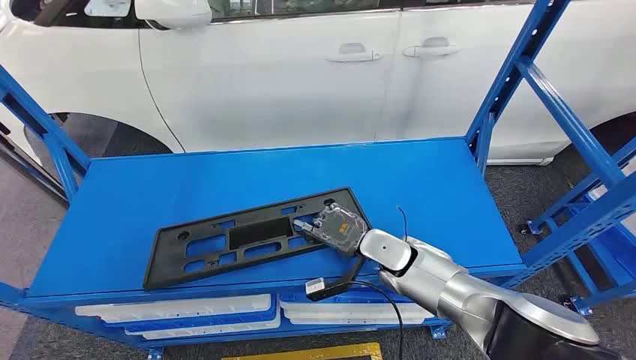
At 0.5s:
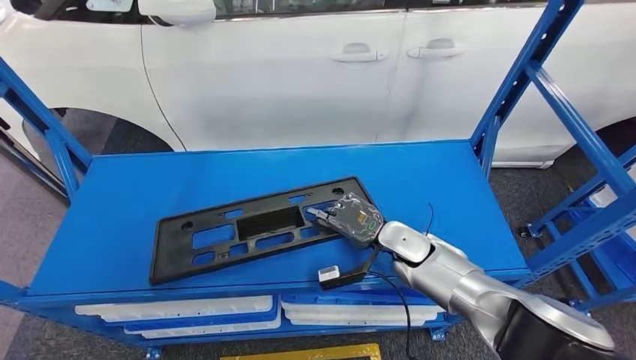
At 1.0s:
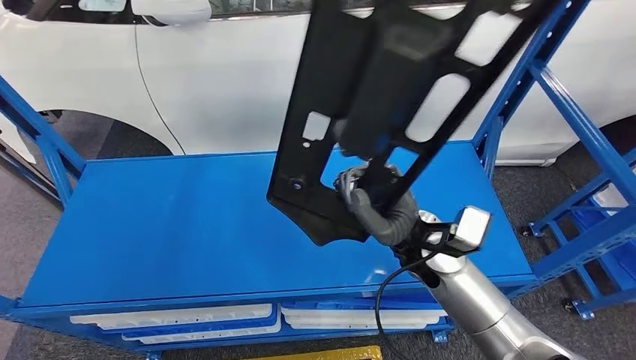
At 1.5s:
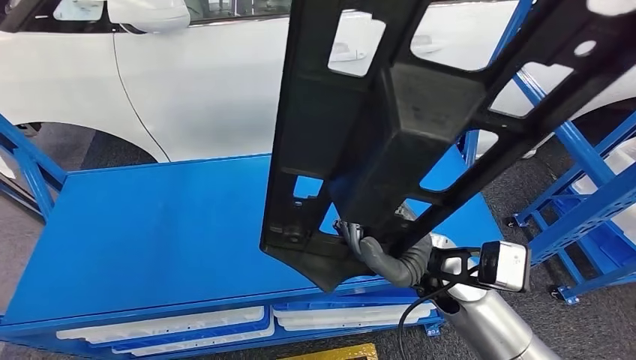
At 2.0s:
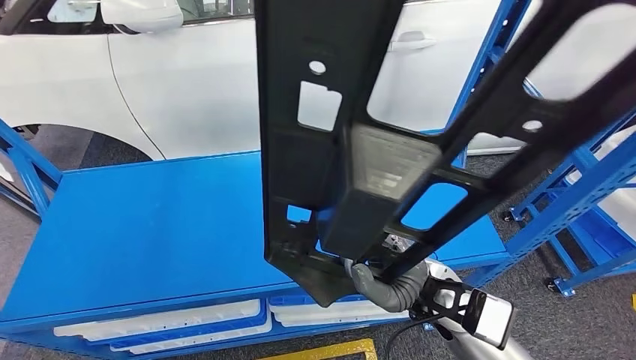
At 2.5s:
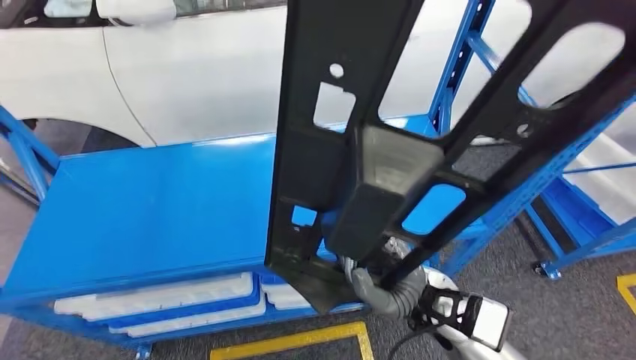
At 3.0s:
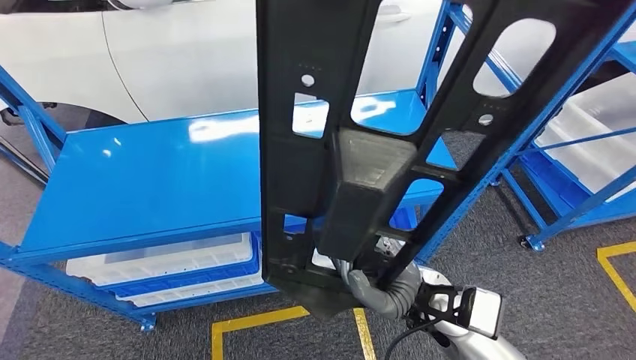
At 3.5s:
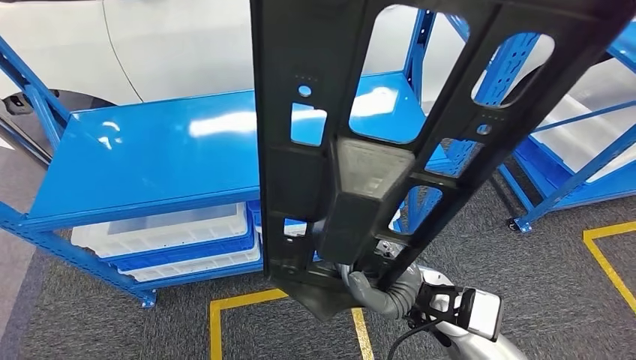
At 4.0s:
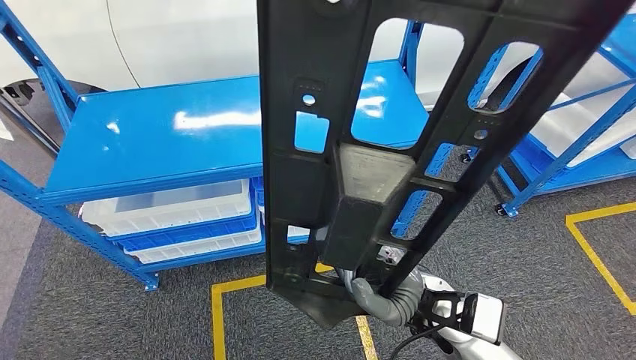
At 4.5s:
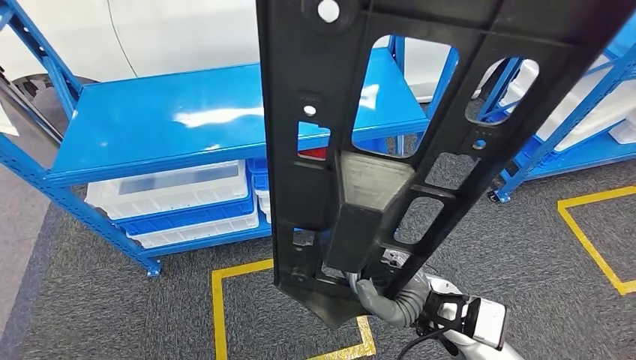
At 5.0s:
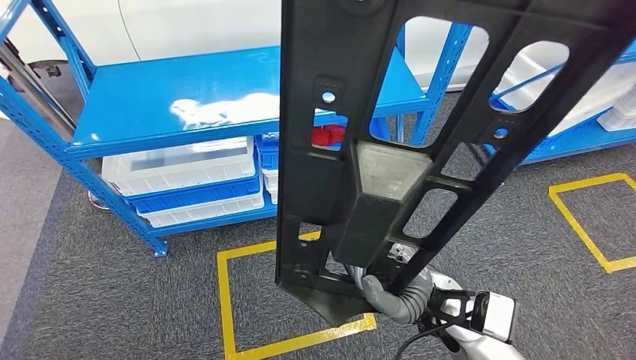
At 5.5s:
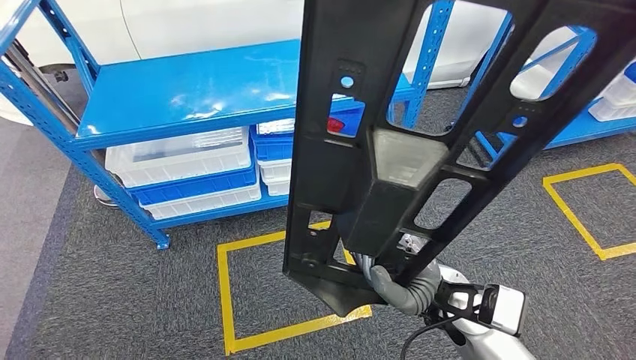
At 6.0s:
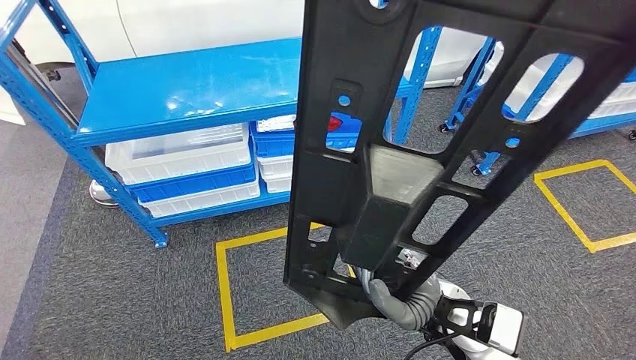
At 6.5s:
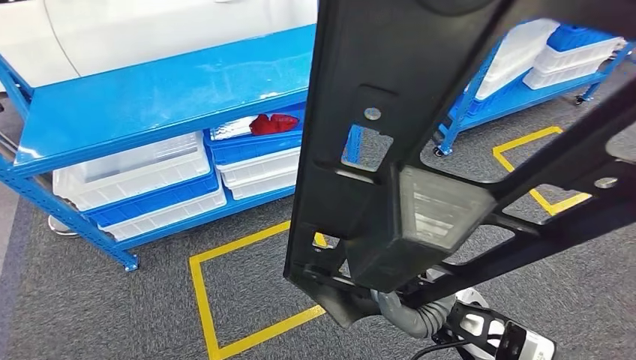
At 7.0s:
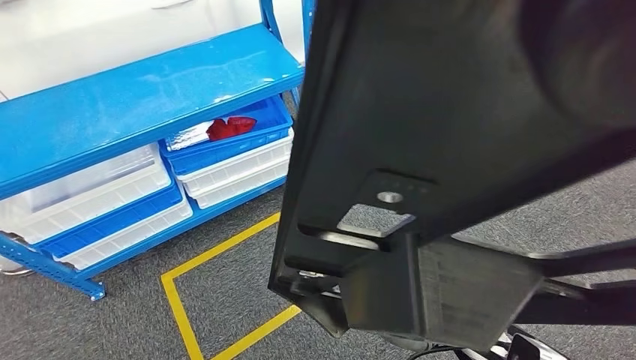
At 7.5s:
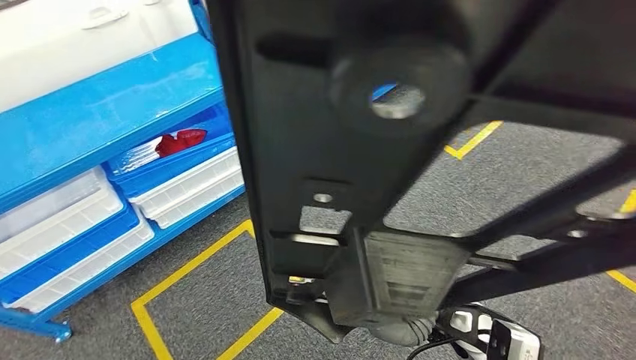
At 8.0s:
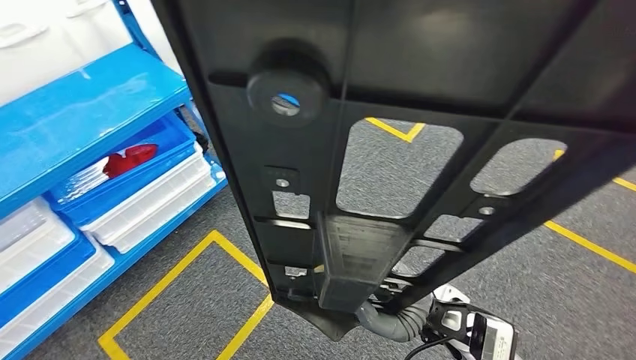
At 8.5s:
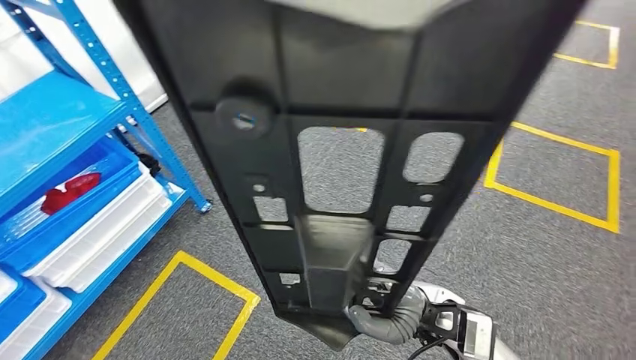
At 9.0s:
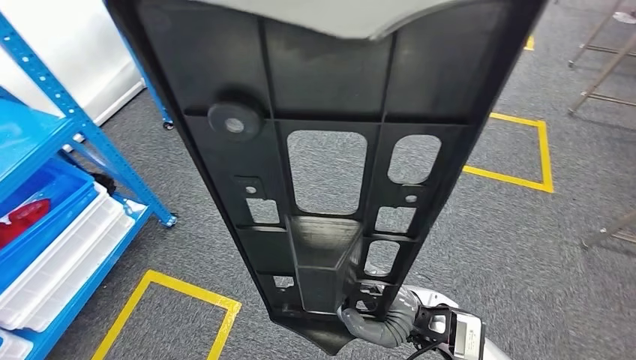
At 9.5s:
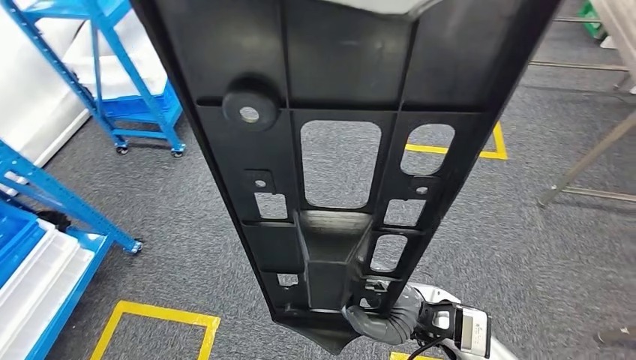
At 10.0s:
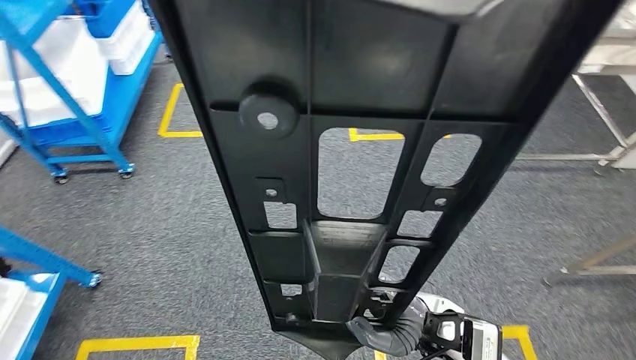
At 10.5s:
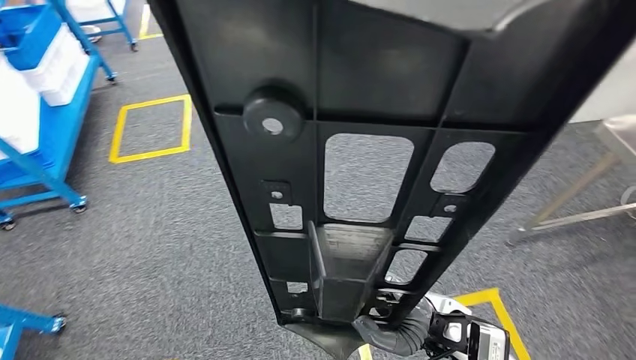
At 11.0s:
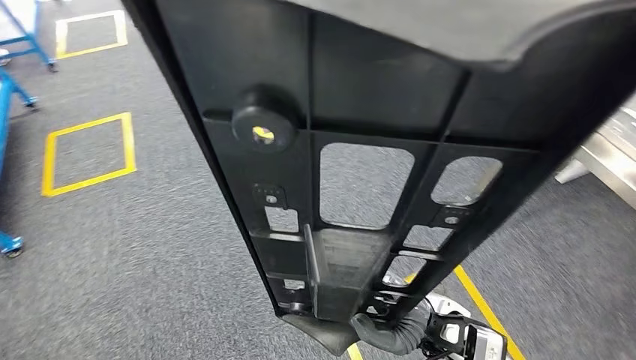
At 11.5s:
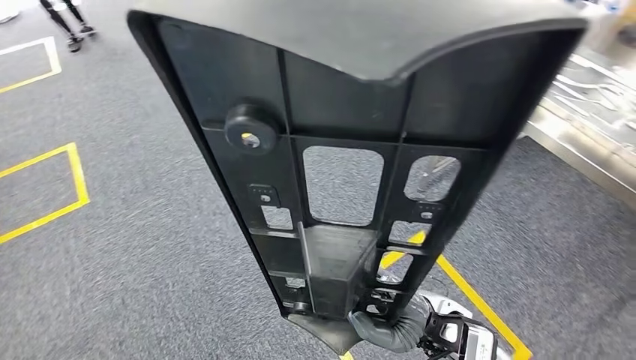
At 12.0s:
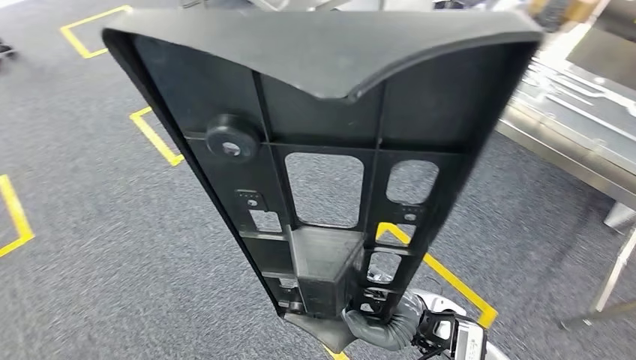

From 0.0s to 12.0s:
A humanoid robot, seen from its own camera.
Step, from 0.0s to 3.0s: Pick up the large material from the shelf.

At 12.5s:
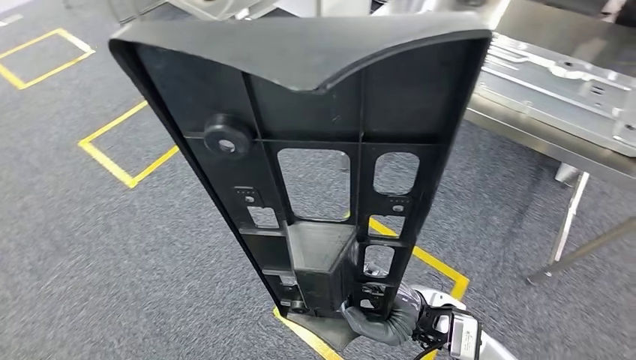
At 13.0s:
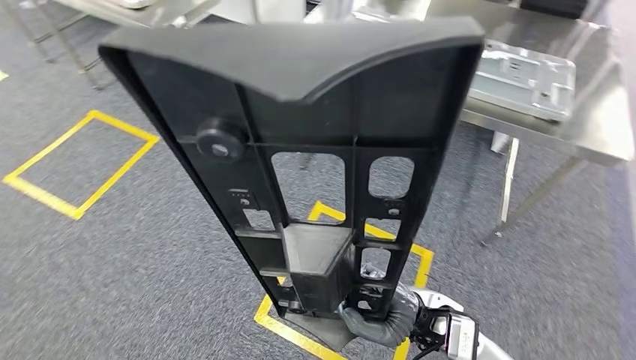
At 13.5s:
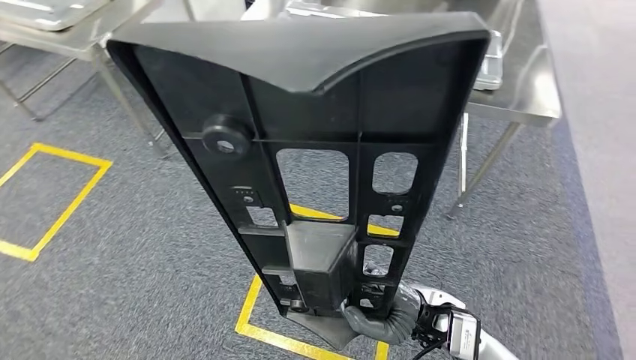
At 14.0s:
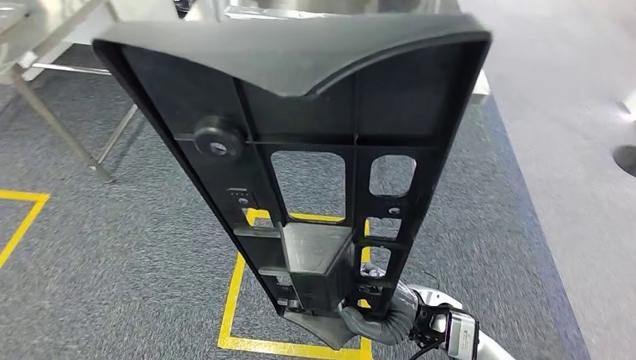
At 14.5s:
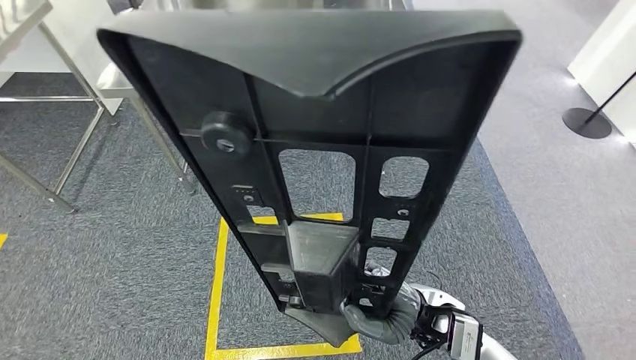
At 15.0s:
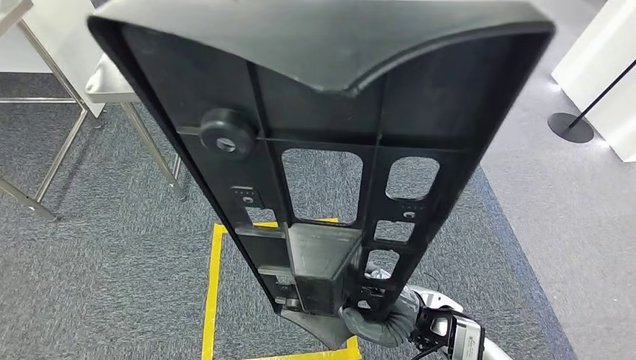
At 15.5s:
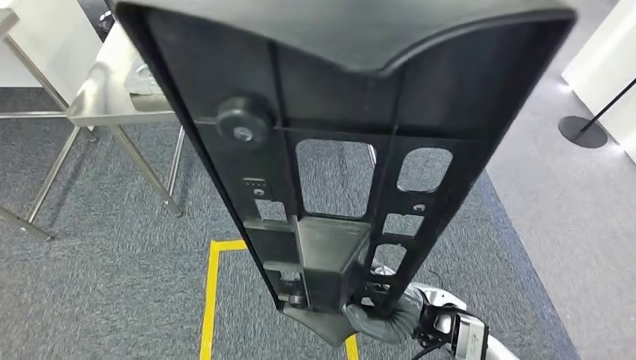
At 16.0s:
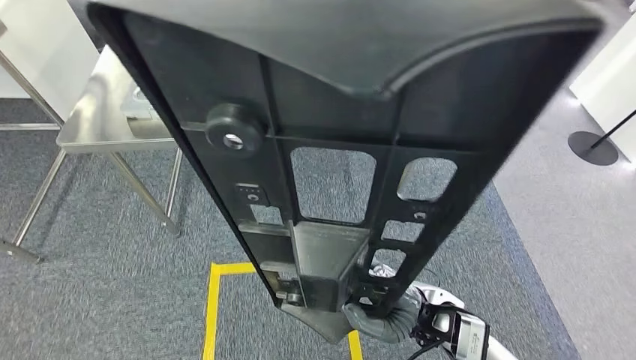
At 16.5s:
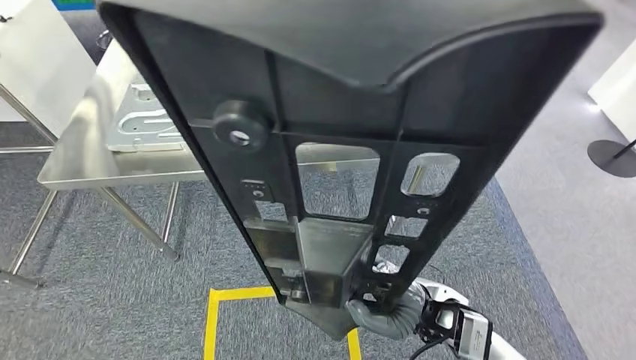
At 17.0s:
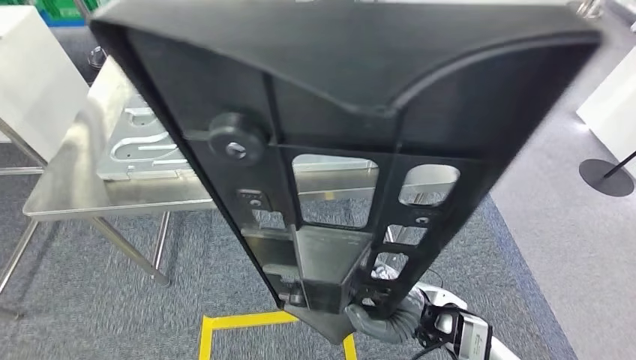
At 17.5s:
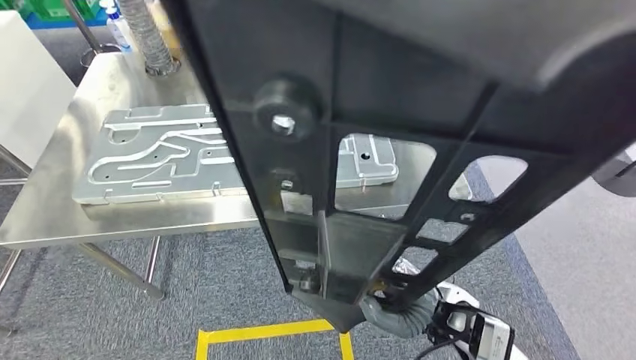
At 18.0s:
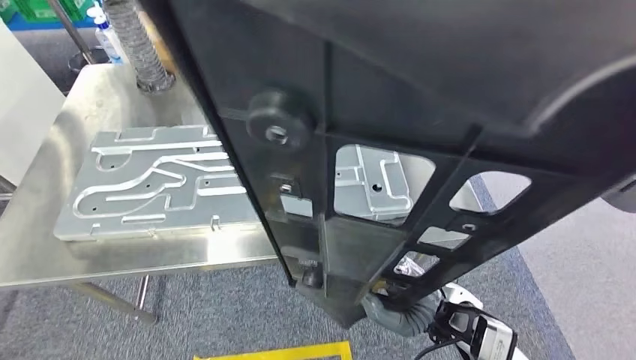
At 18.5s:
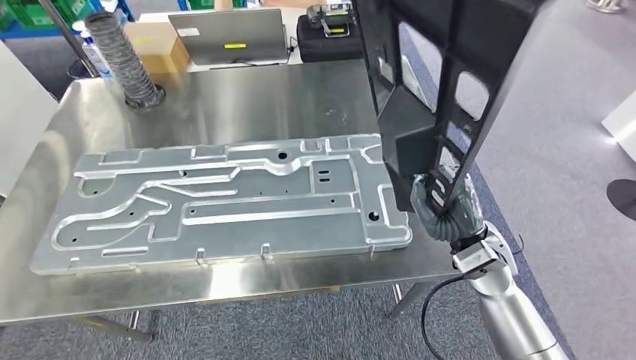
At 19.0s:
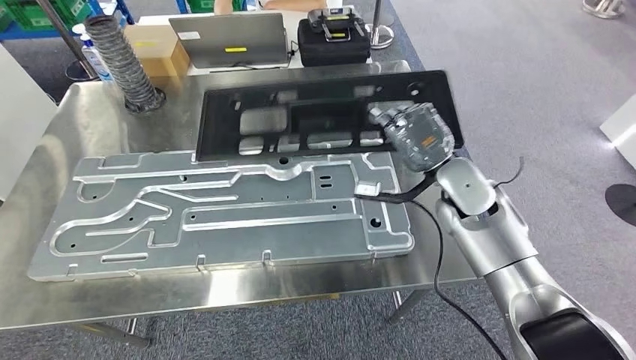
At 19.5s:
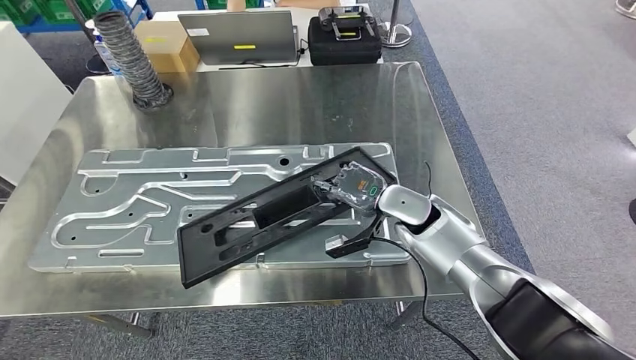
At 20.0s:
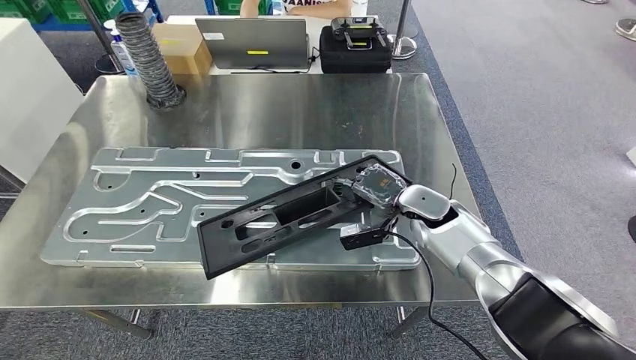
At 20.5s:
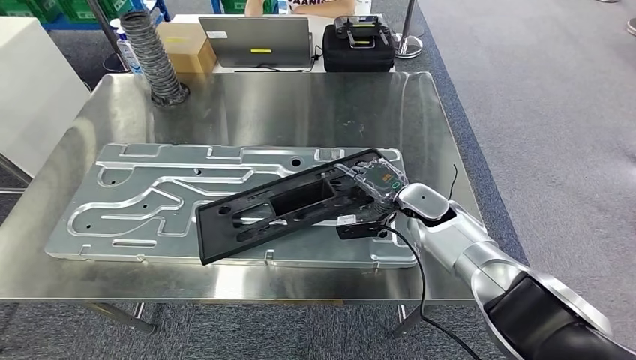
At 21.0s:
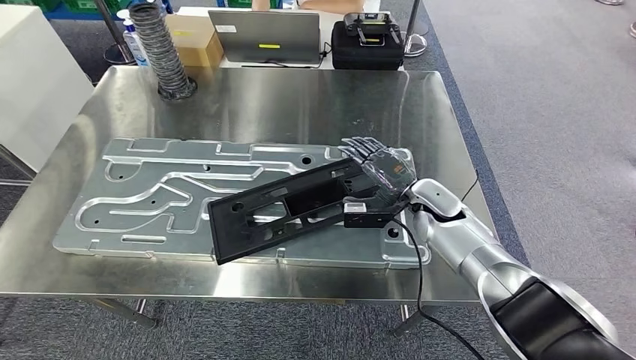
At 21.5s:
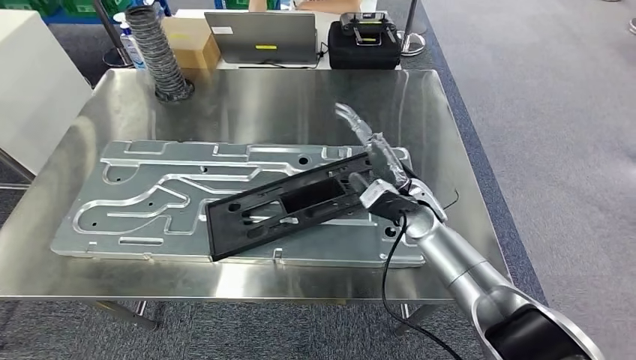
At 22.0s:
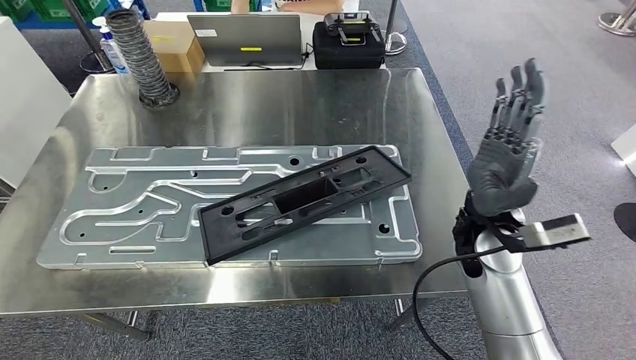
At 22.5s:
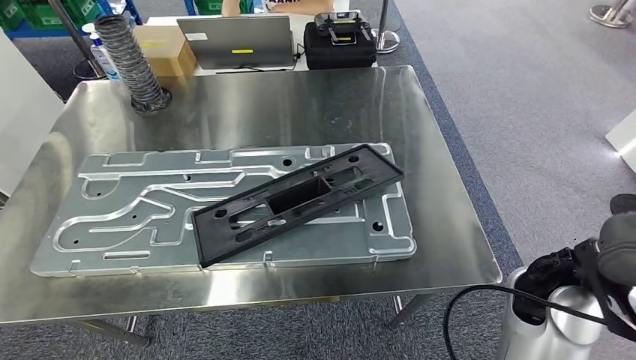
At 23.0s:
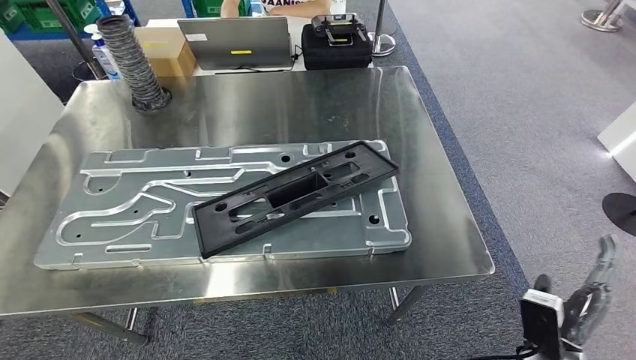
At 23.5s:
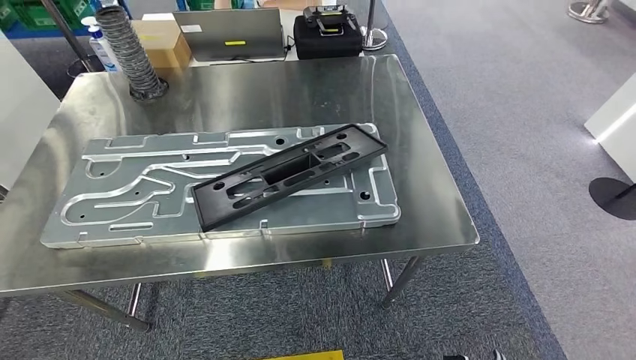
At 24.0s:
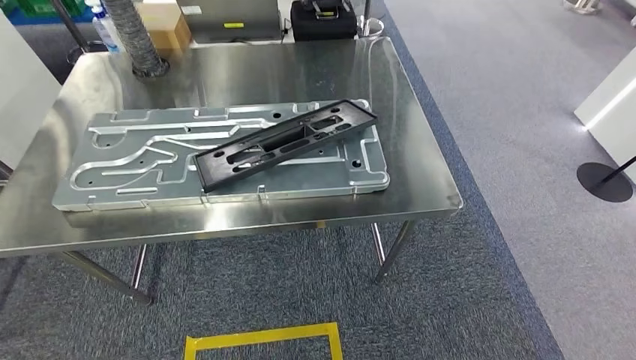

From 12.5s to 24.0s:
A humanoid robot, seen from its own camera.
Step, from 12.5s to 18.5s: Move the large material to the front of the workbench.
Step, from 19.5s to 20.5s: Insert the large material into the corresponding hole on the workbench.
